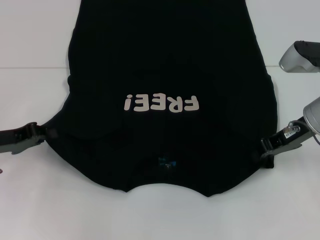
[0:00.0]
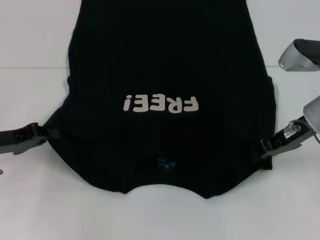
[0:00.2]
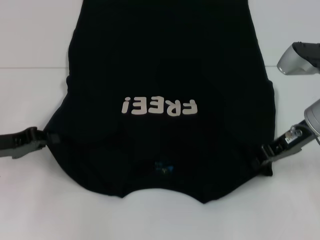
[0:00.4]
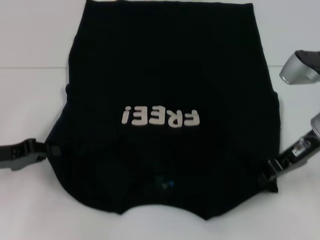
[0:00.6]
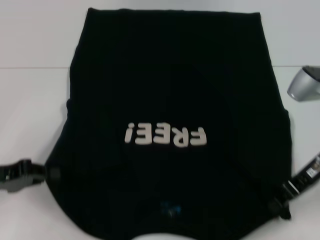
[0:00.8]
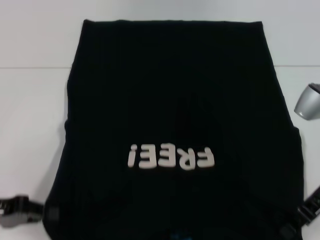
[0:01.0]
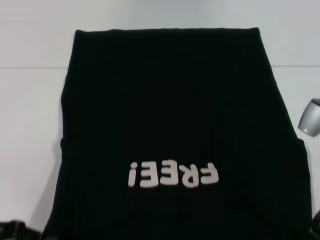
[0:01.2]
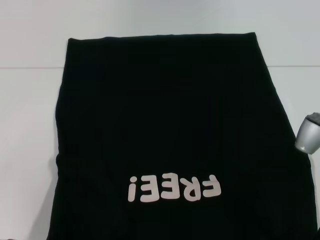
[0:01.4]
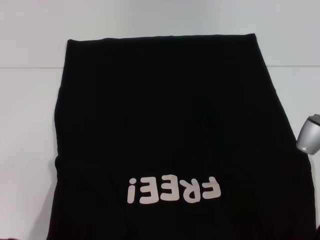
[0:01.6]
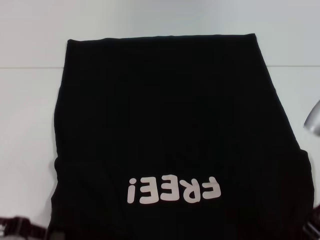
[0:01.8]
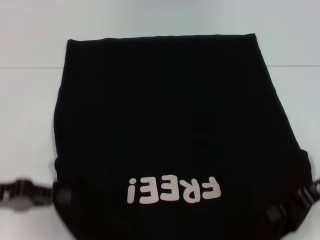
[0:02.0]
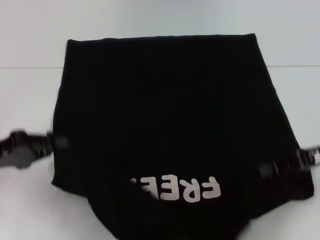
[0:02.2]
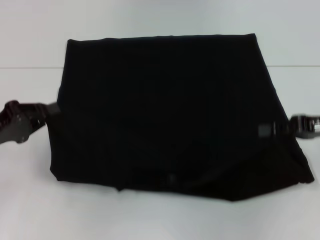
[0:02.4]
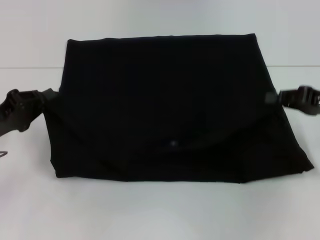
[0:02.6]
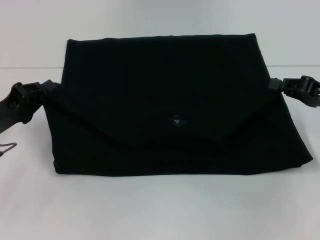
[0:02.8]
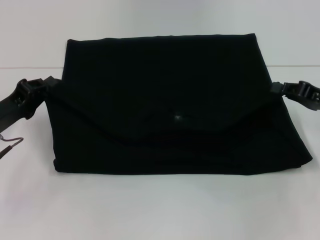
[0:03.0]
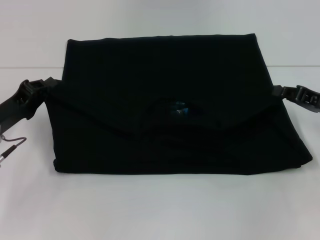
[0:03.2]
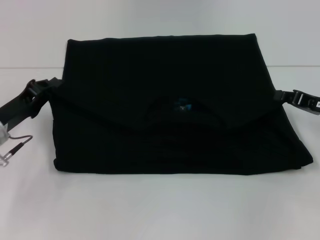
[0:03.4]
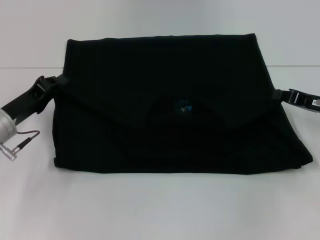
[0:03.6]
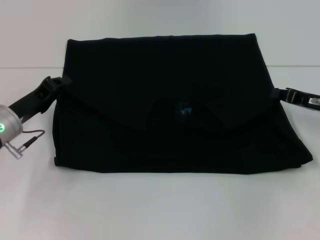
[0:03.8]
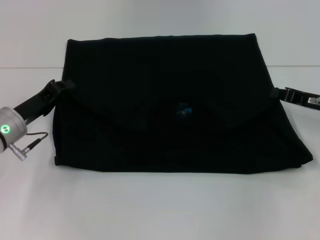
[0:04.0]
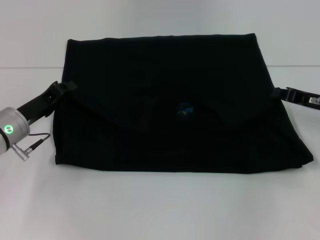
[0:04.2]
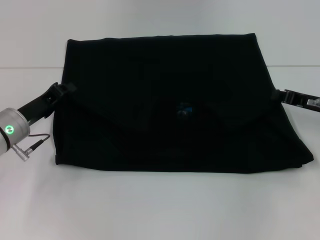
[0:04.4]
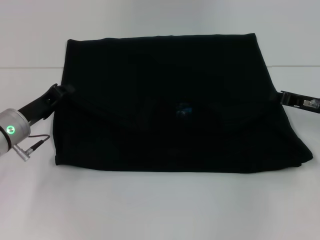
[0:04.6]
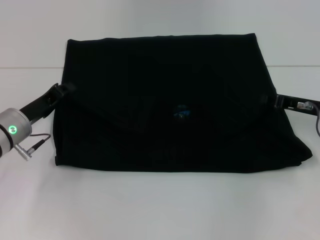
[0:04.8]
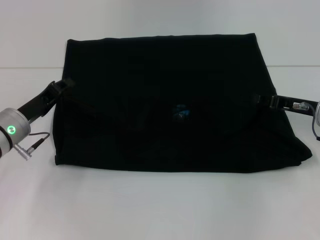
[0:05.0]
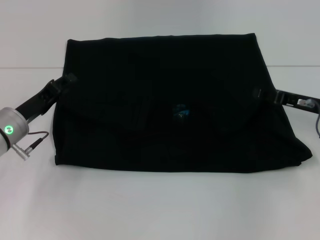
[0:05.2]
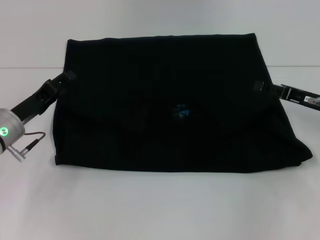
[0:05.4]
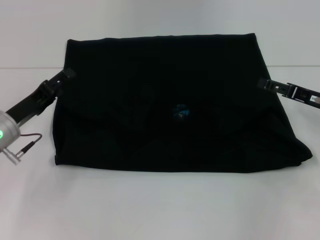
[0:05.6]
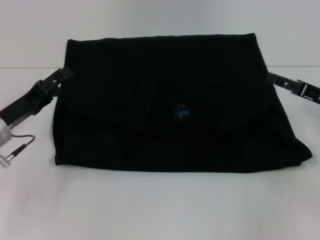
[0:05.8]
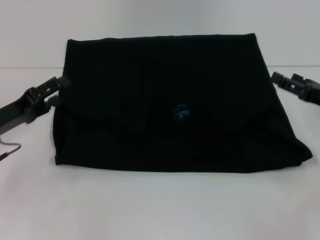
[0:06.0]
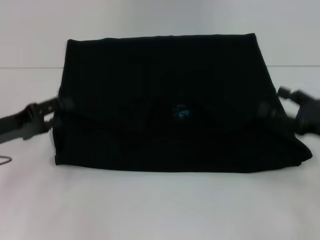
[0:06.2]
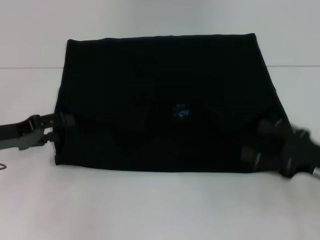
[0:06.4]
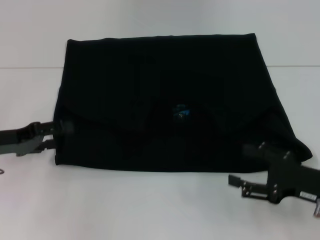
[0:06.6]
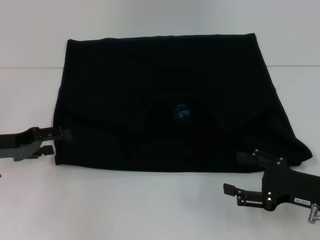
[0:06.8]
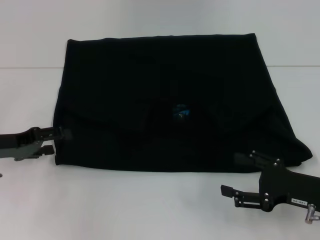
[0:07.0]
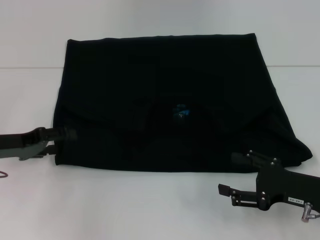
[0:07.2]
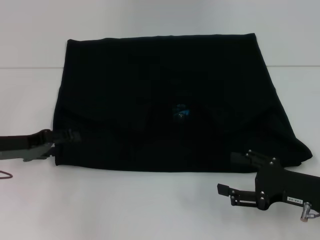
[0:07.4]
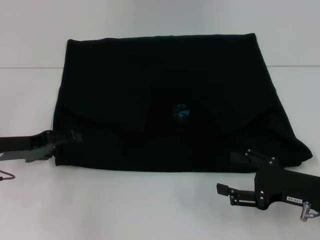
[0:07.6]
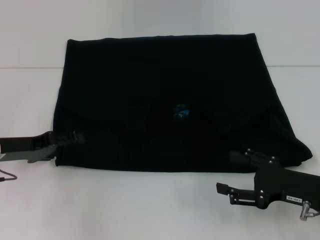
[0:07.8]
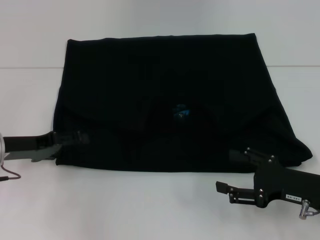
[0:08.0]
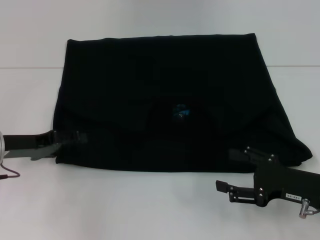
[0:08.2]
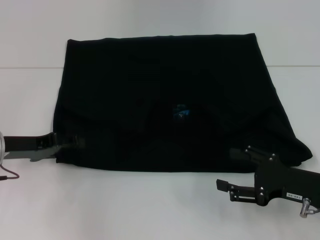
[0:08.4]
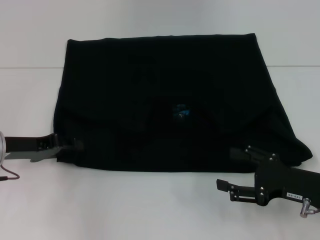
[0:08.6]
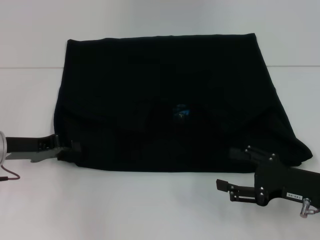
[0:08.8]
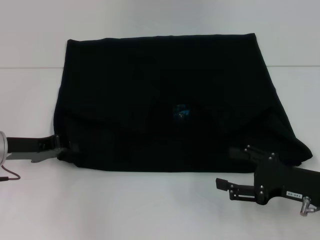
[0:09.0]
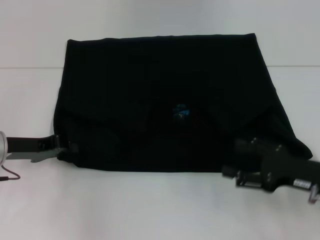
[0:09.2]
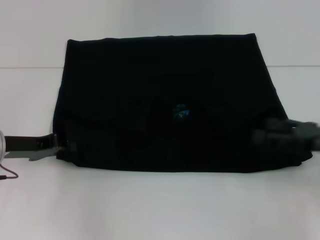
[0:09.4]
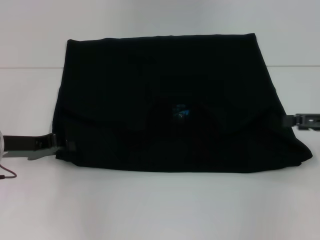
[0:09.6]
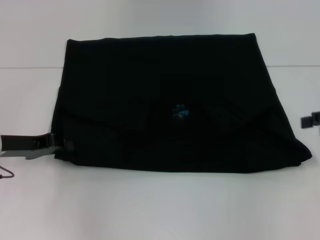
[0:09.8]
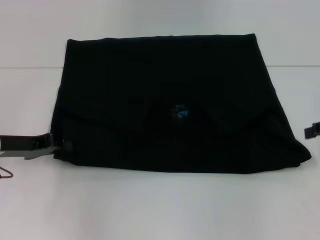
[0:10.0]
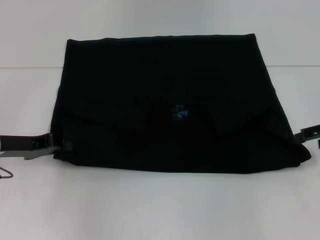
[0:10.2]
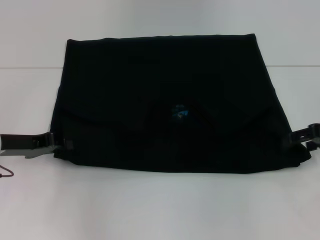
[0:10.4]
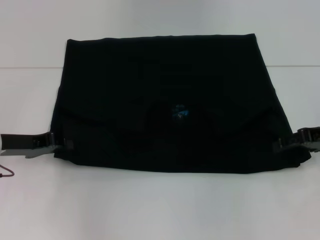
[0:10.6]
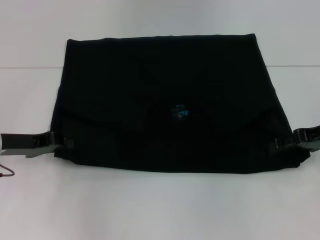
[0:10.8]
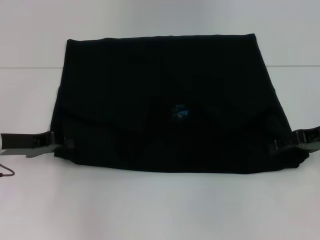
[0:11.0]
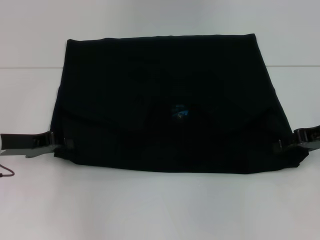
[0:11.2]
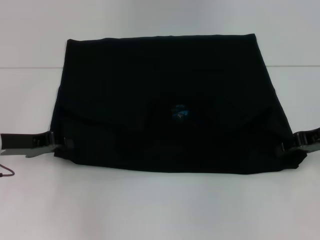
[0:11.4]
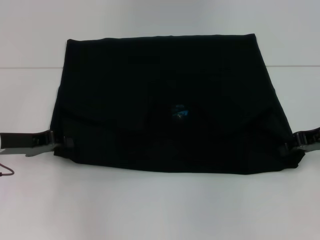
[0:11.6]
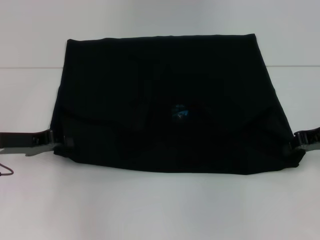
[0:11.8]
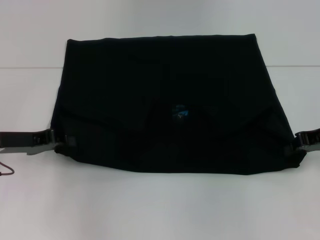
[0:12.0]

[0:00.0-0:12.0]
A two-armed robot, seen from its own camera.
Step, 0.2 to 5.2 s: Fold the clothes with your left hand.
Step, 0.2 to 5.2 s: Fold the clothes with your right hand.
0.0 to 1.6 s: Both grippers travel together backward, some 10 cm.
1.6 to 3.0 s: The left gripper travels forward by some 10 cm; the right gripper goes approximately 10 cm to the right and forward.
3.0 to 4.4 s: The left gripper moves about 5 cm.
4.4 to 6.0 s: The right gripper moves about 5 cm, and opens. Meanwhile the left gripper moves approximately 5 cm, and opens up.
6.0 to 7.6 s: The right gripper heads backward and to the left, covering approximately 10 cm.
7.6 to 9.0 s: The left gripper closes.
9.0 to 10.4 s: The right gripper heads forward, upward and to the right, covering approximately 15 cm.
10.4 to 12.0 s: The right gripper closes up.

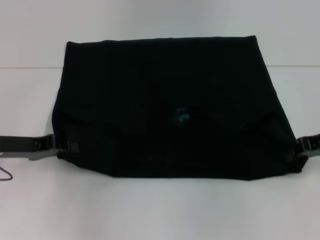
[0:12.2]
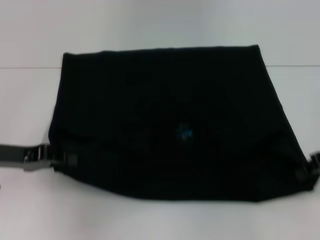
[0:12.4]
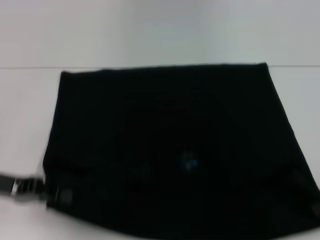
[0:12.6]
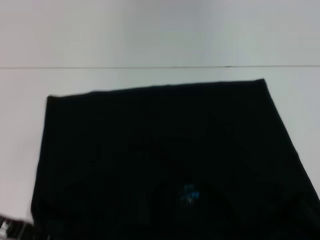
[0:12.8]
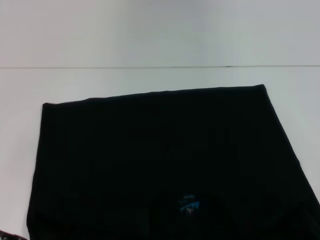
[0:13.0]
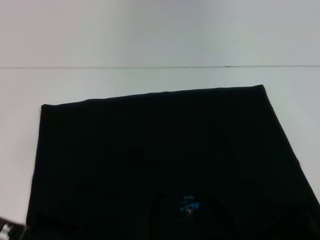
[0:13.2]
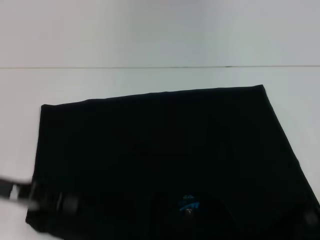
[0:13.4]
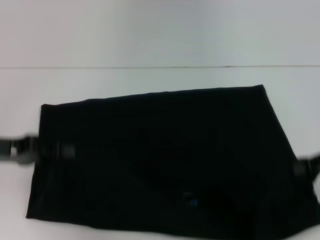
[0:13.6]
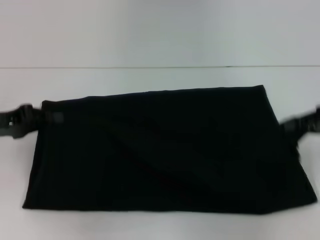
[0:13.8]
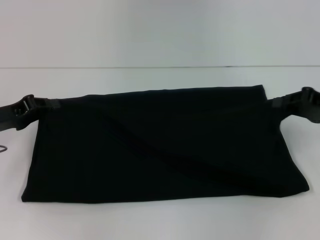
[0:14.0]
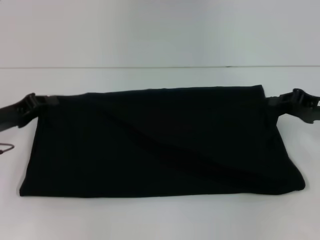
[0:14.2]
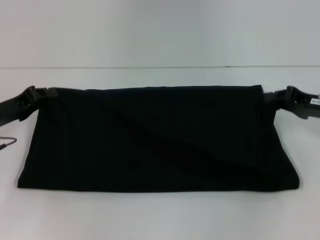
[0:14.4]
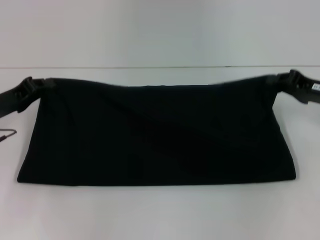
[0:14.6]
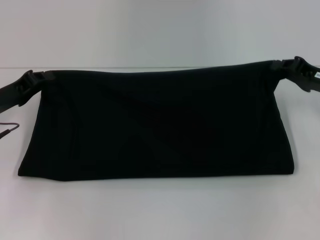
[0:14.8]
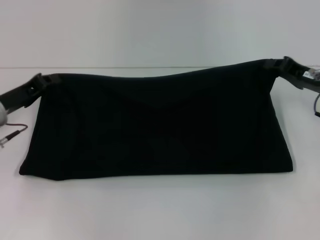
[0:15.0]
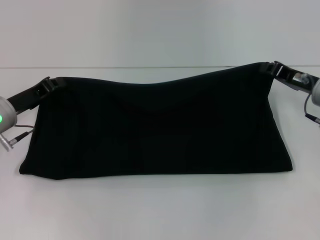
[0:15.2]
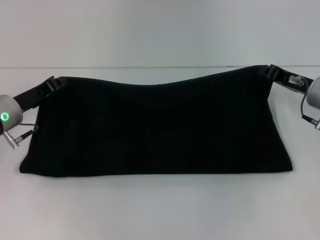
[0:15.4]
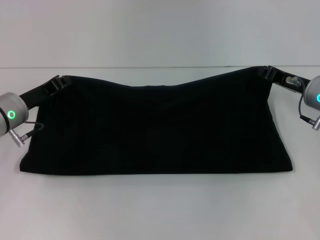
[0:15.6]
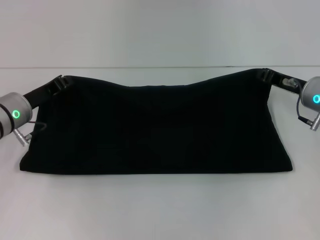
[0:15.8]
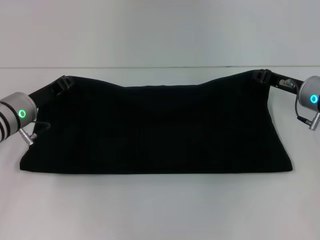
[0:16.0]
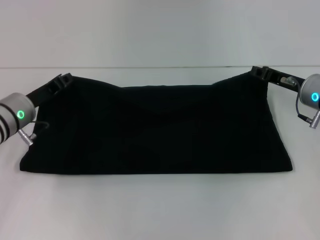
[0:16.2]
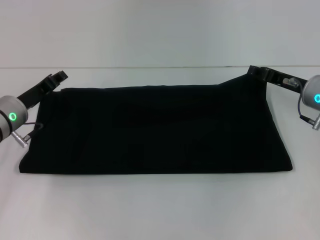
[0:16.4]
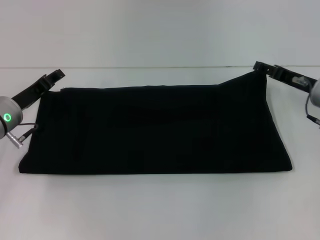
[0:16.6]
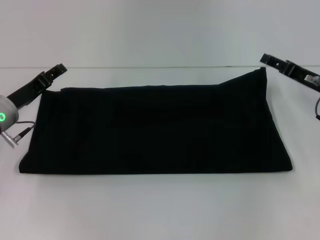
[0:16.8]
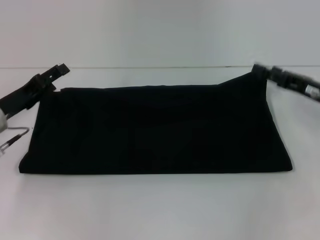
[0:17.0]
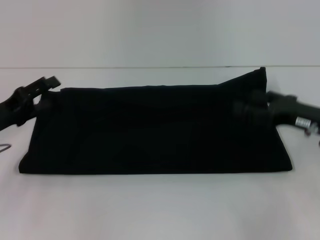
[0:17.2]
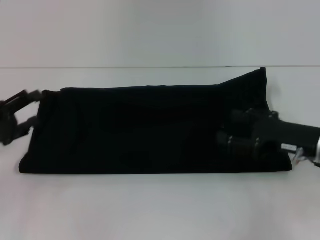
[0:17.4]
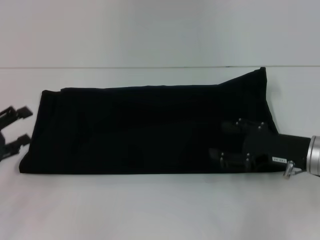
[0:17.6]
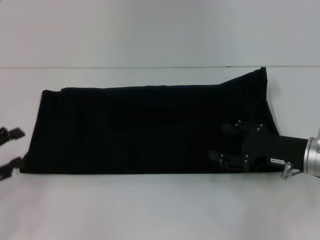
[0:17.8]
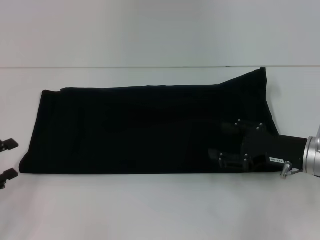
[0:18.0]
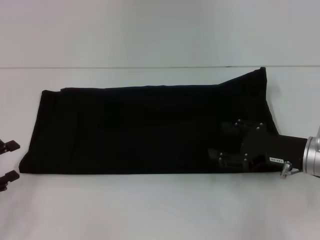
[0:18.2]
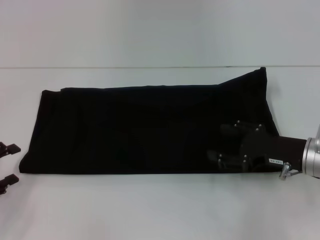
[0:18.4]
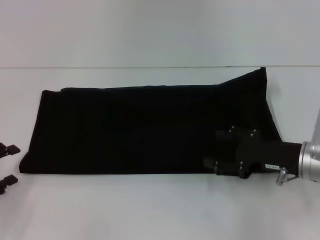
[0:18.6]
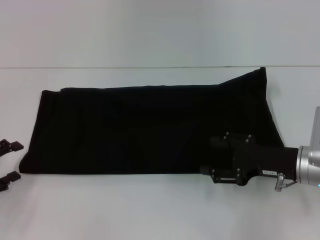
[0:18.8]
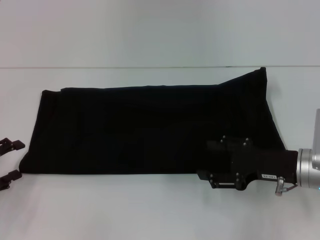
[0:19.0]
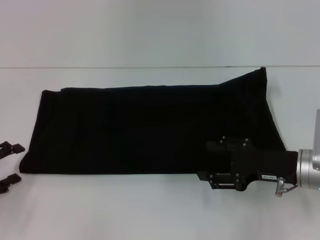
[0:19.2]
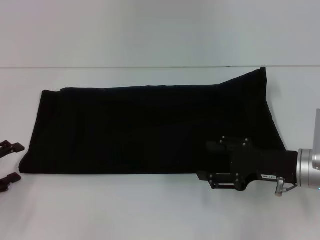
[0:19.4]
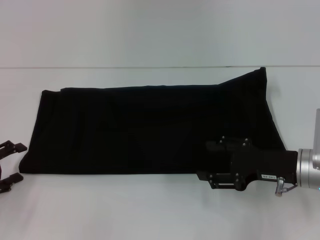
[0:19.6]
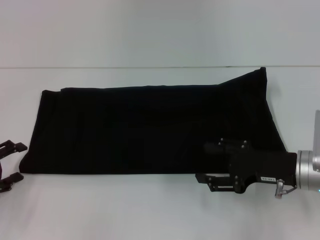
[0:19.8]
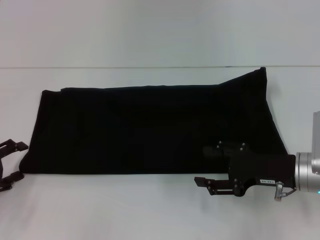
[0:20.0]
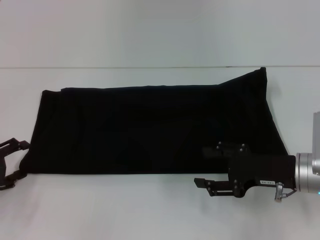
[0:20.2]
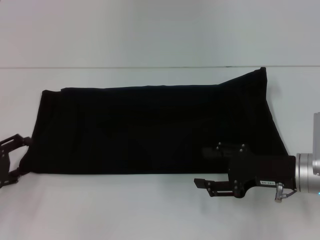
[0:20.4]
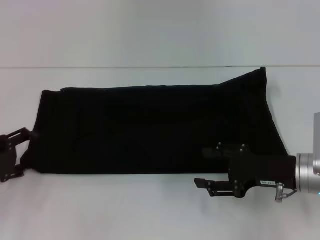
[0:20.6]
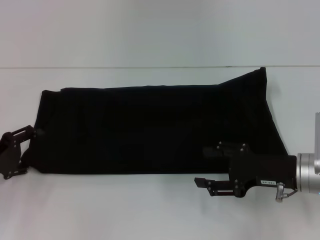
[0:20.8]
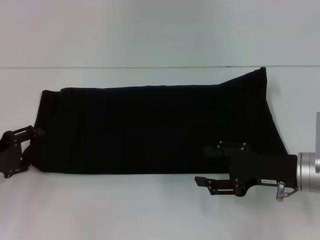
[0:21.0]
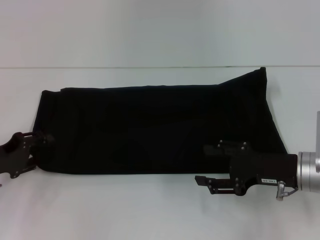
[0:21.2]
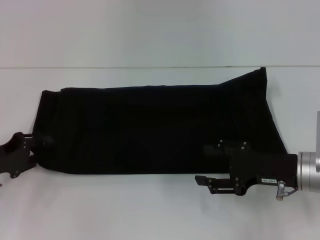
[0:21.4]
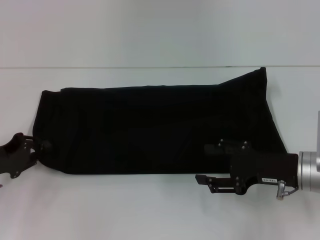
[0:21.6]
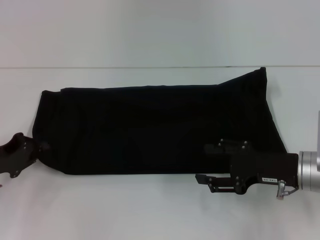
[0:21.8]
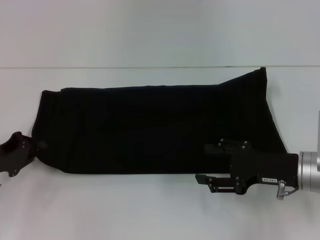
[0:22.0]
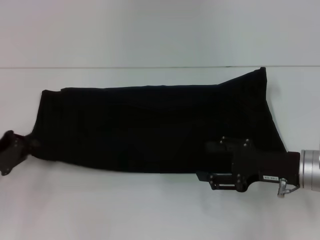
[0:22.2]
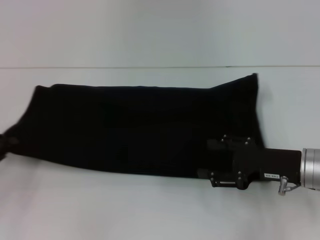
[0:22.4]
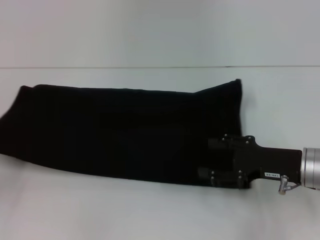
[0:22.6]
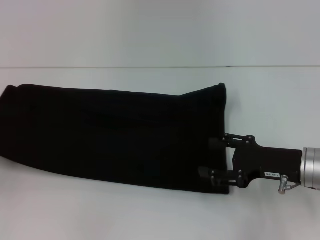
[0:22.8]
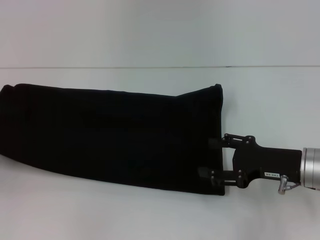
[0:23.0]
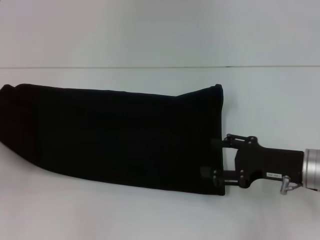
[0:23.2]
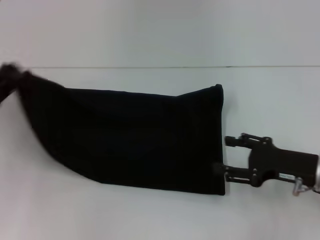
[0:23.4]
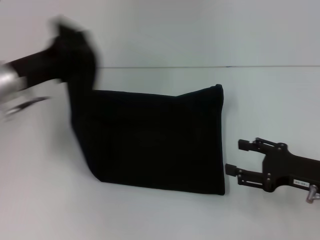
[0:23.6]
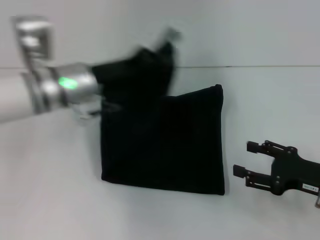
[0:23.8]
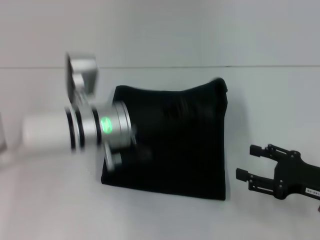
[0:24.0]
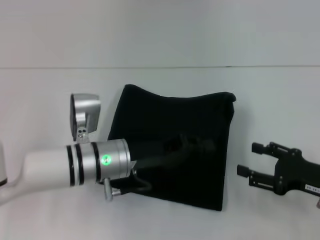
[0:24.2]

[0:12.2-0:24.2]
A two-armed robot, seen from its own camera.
Step, 13.4 to 16.6 s: Fold the clothes with your right hand.
12.2 to 13.8 s: The left gripper goes backward and returns, roughly 10 cm each way, while the right gripper goes backward and returns, approximately 10 cm each way.
13.8 to 15.2 s: The left gripper moves some 10 cm. Meanwhile the right gripper heads to the left, forward and downward, covering some 10 cm.
15.2 to 16.6 s: The left gripper opens up; the right gripper opens up.
16.6 to 18.2 s: The right gripper goes approximately 10 cm backward. The left gripper shifts some 20 cm backward and to the left, and opens its fingers.
18.2 to 19.8 s: The grippers stay close to where they were, moving slightly.
19.8 to 21.2 s: The left gripper changes place by approximately 5 cm.
21.2 to 22.6 s: The left gripper moves to the left, about 5 cm, and closes its fingers.
22.6 to 24.2 s: The left gripper travels to the right by roughly 30 cm; the right gripper is displaced to the right by roughly 5 cm.
